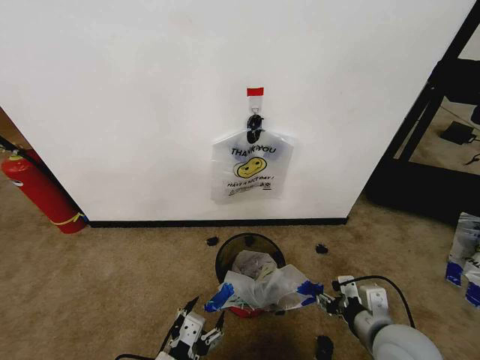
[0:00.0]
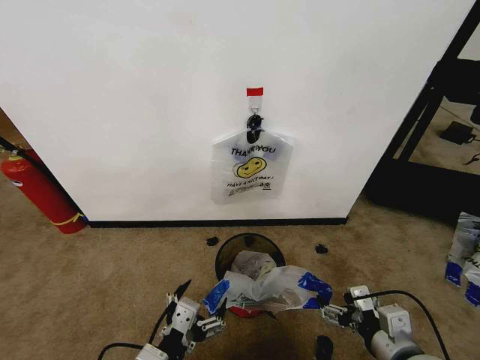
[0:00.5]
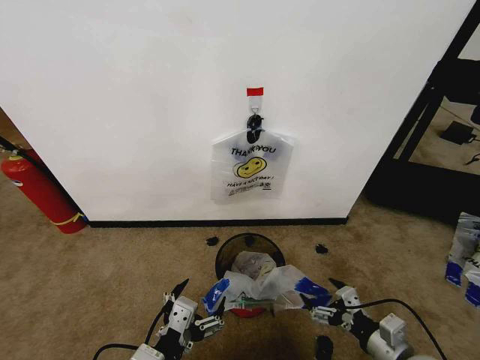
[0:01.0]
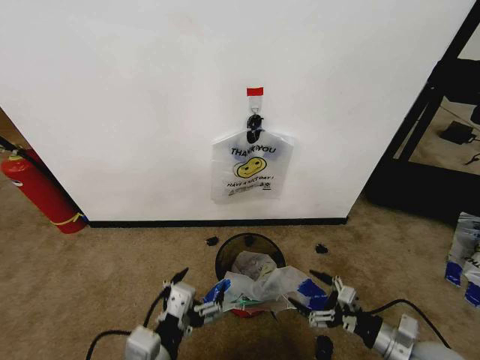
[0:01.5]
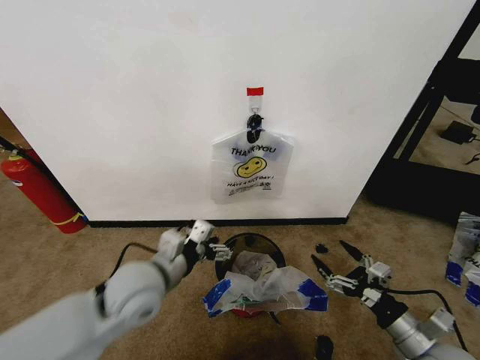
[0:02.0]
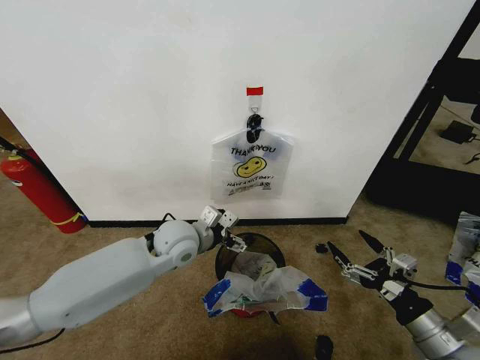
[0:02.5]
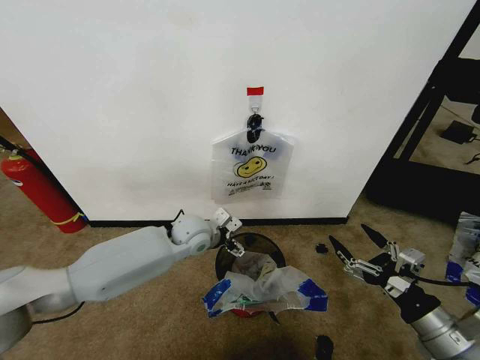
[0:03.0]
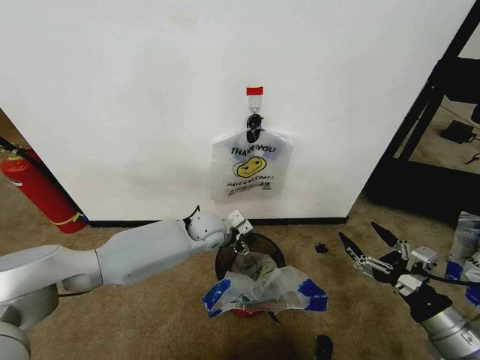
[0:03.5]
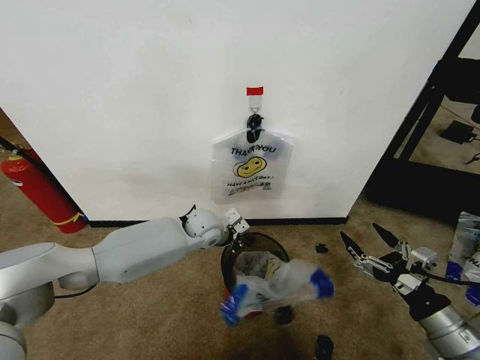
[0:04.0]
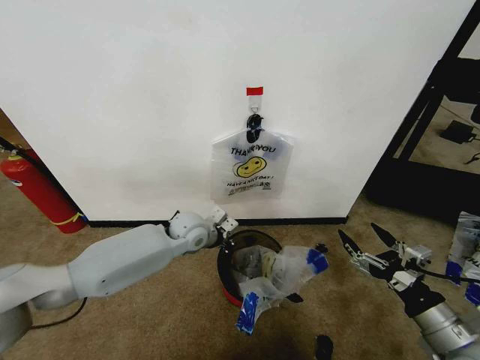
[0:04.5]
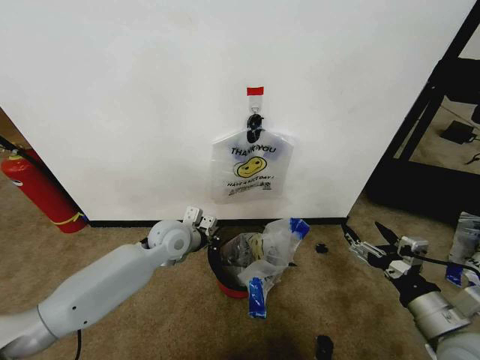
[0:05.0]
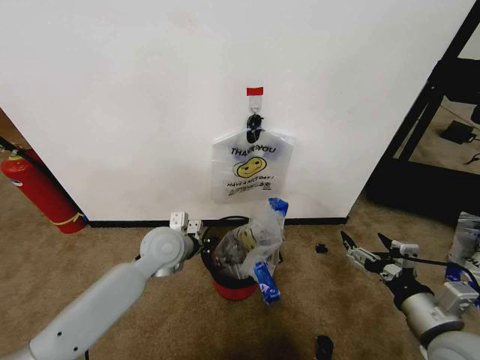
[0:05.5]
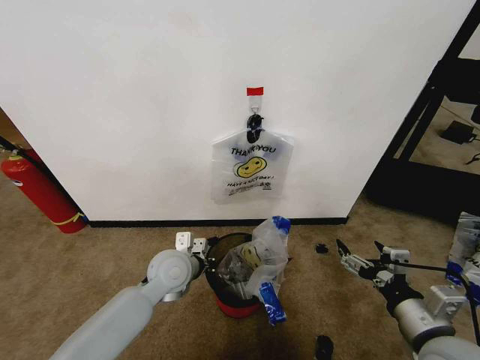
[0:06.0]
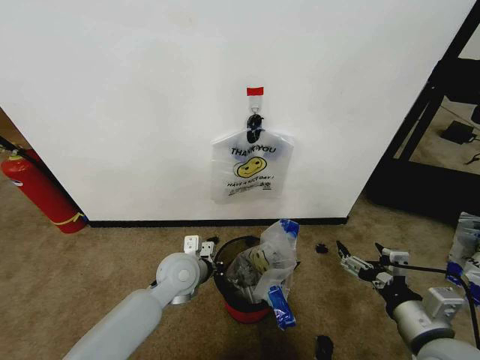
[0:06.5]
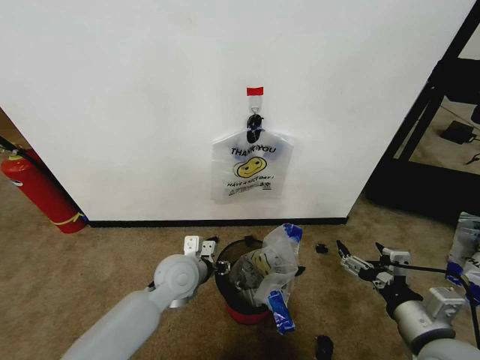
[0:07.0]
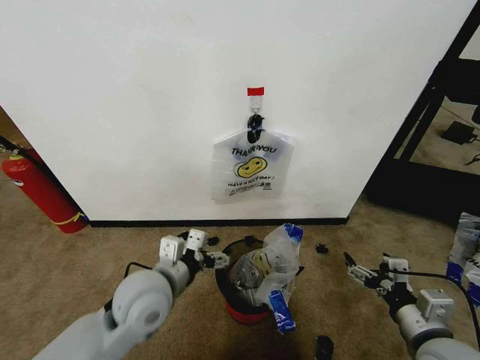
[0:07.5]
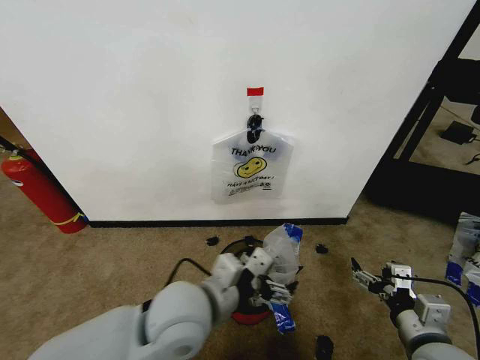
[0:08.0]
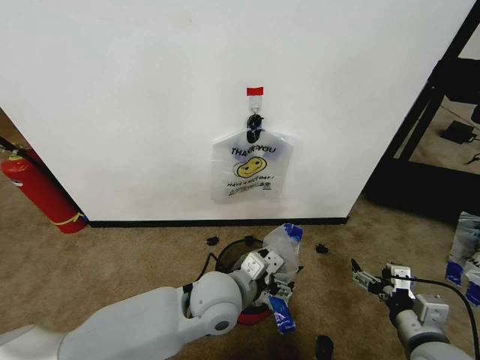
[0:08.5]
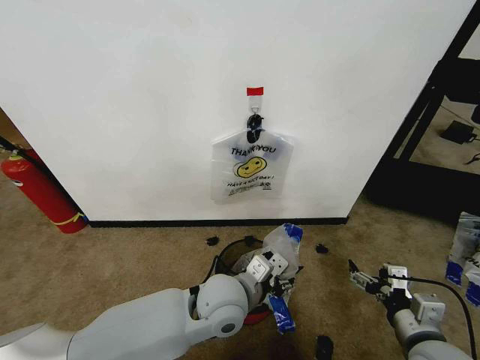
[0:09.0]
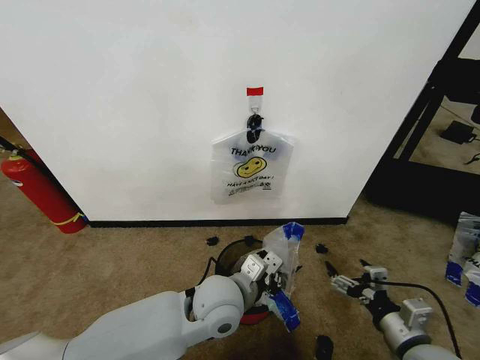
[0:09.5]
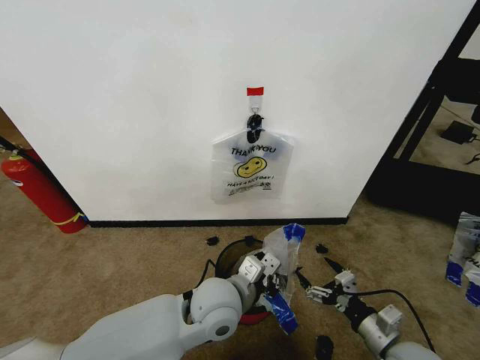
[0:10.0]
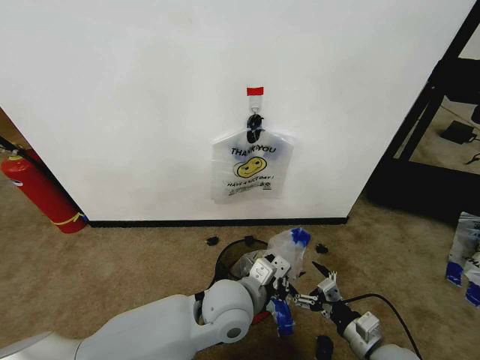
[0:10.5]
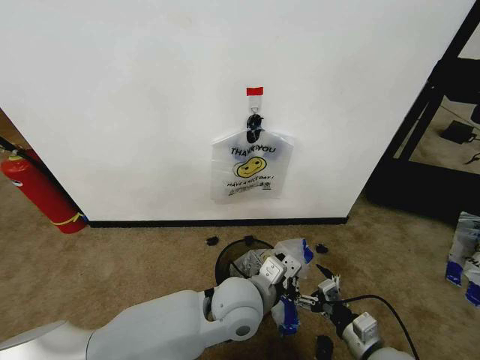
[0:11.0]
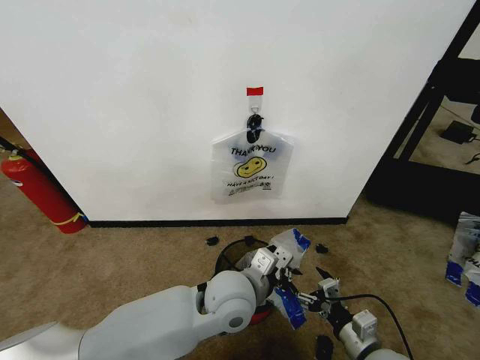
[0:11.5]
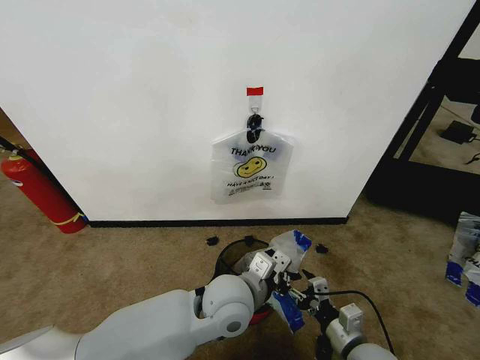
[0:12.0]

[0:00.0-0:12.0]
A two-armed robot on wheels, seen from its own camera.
Task of the whole recording: Pick up the garbage bag from the wall and place it over the trash bin.
0:00.0 to 0:02.0: The right gripper heads to the right and downward, covering about 10 cm, and opens up; the left gripper goes roughly 15 cm forward and upward.
0:02.0 to 0:04.0: The right gripper is displaced upward by about 10 cm. The left gripper goes some 25 cm forward, and closes its fingers.
0:04.0 to 0:06.0: The left gripper travels backward and to the left by about 15 cm, while the right gripper moves to the left, approximately 5 cm.
0:06.0 to 0:08.0: The left gripper shifts about 15 cm backward, upward and to the right, and opens its fingers.
0:08.0 to 0:10.0: The grippers both shift downward by roughly 5 cm. The left gripper closes up.
0:10.0 to 0:12.0: The right gripper is displaced to the left by roughly 5 cm.

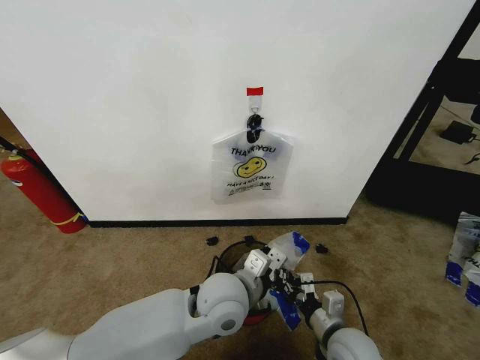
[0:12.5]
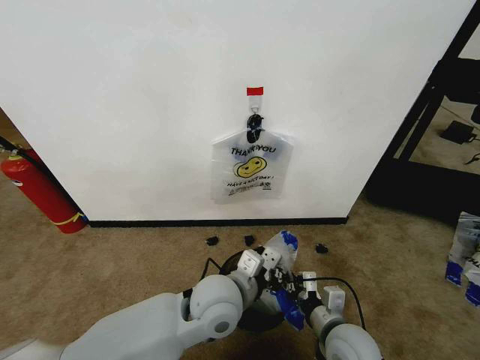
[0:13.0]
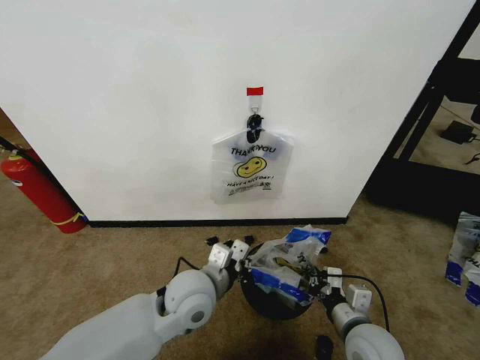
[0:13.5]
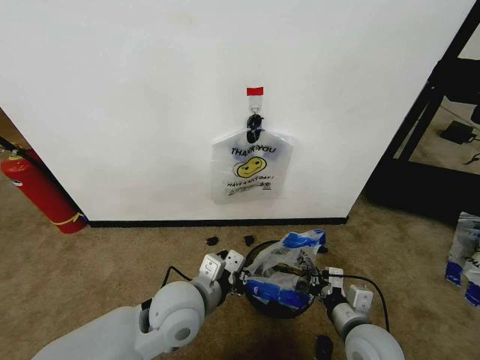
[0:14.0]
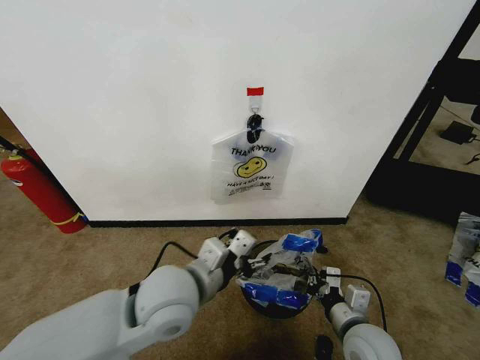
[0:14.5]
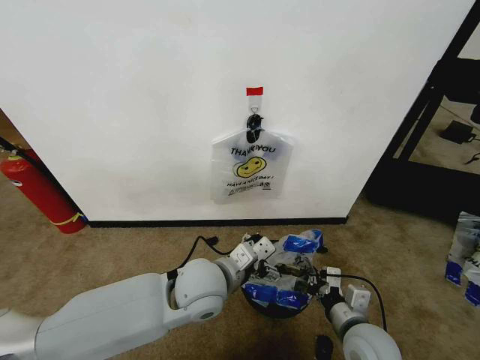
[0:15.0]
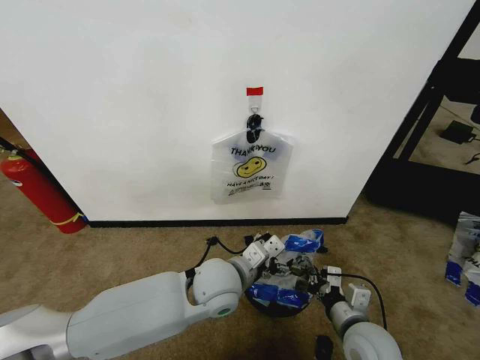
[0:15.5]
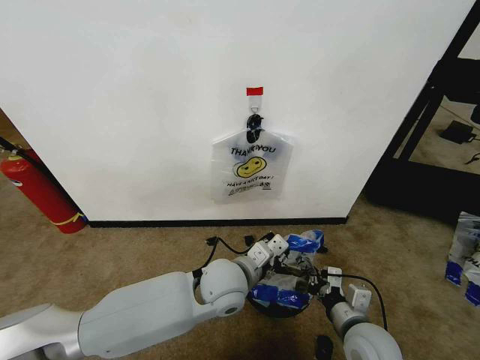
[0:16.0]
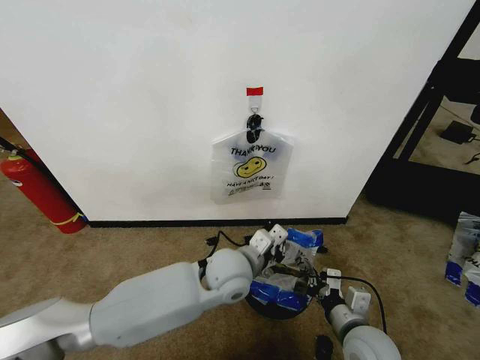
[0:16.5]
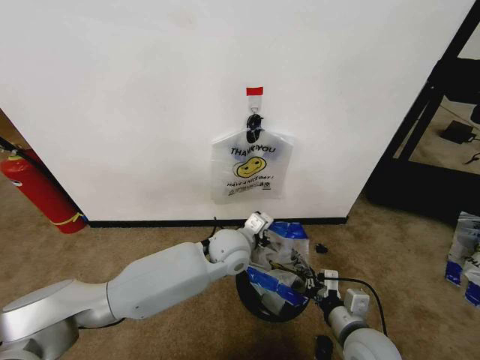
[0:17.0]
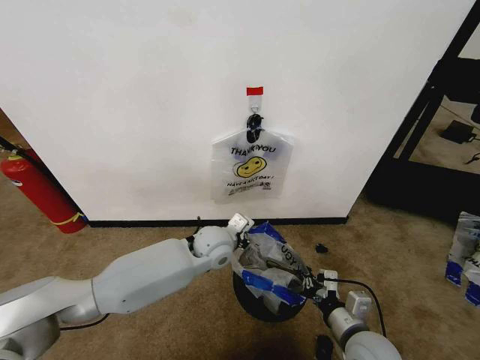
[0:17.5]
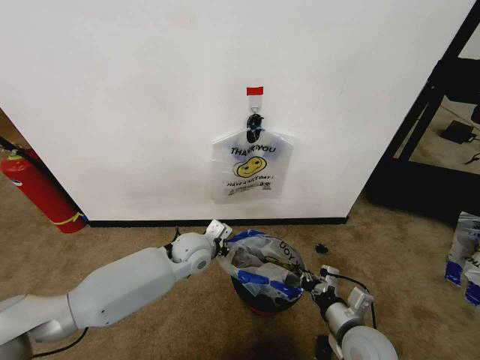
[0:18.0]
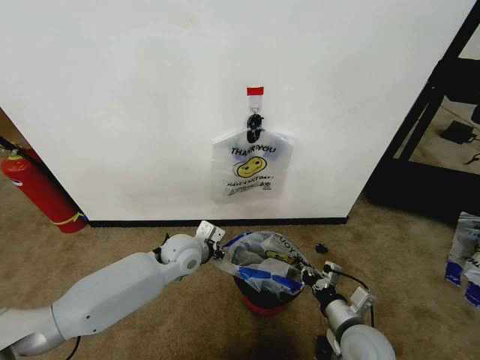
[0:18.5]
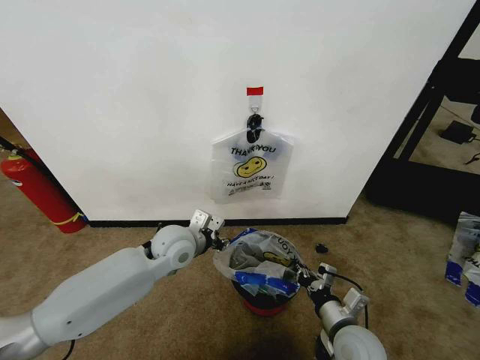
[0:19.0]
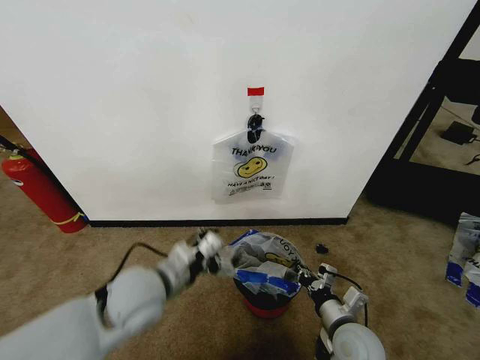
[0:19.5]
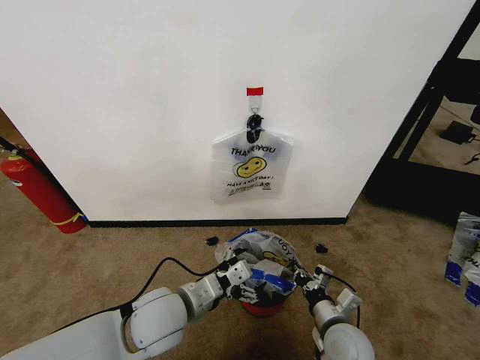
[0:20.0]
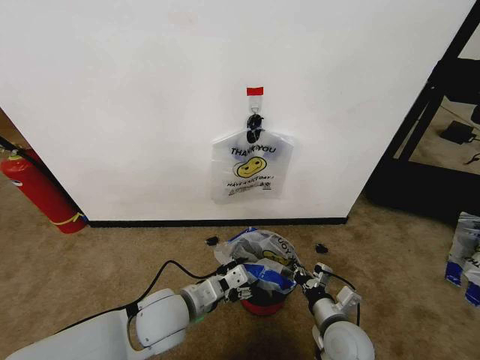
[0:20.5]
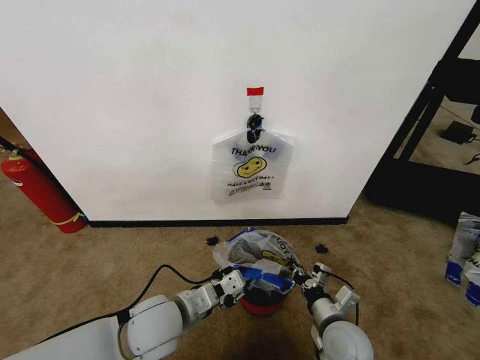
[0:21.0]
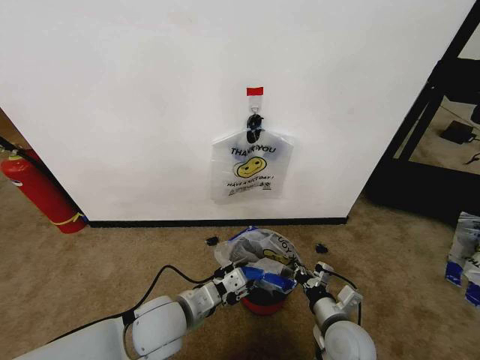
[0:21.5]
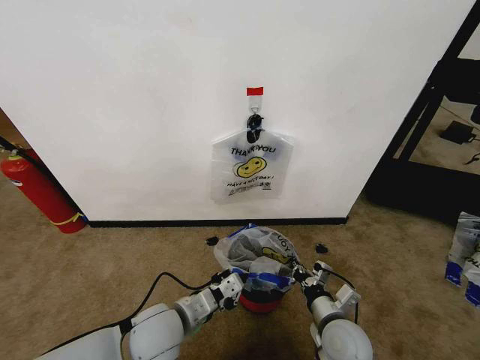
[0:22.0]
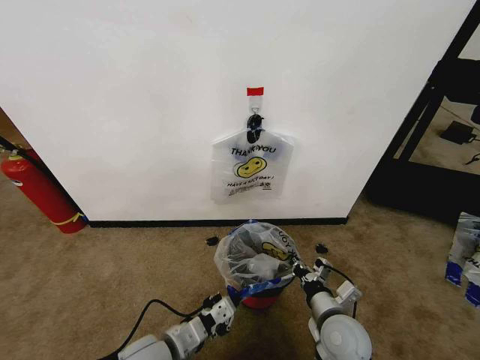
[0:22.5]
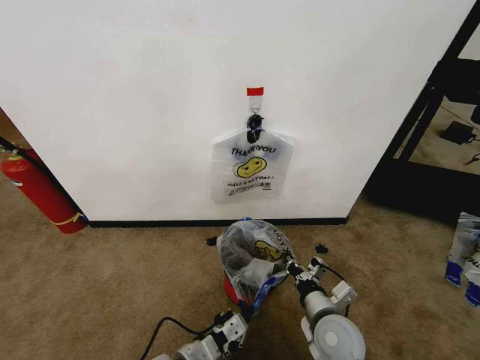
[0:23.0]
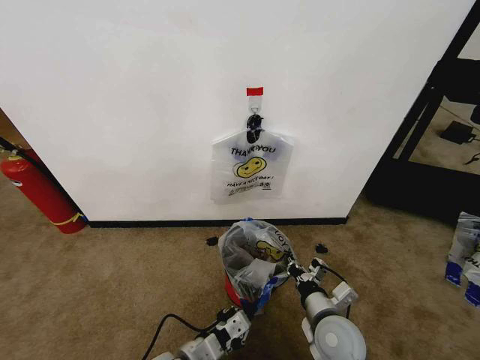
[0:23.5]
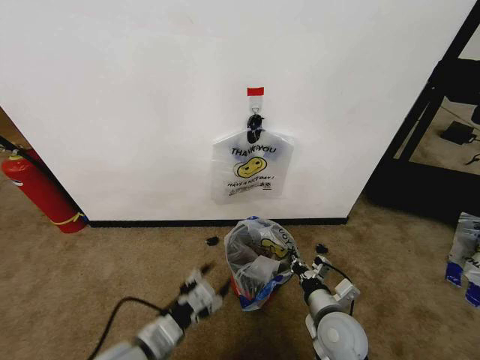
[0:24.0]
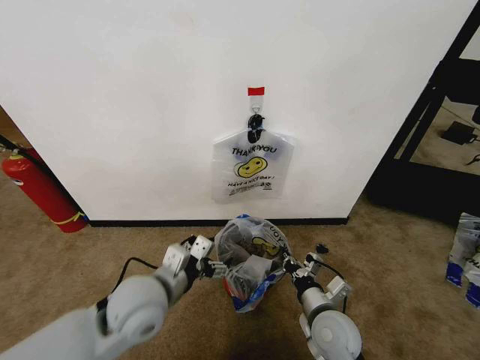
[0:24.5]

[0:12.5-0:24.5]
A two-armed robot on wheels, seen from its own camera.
Task of the whole recording: Pick up the garbage bag from the wall and place it over the trash bin.
0:12.5 to 0:14.5: The left gripper travels to the left and upward by approximately 10 cm, and opens its fingers.
0:14.5 to 0:16.5: The left gripper is displaced to the right, forward and downward by some 15 cm, and closes.
0:16.5 to 0:18.5: The left gripper heads to the left and forward, covering roughly 15 cm.
0:18.5 to 0:20.5: The left gripper heads backward, covering some 15 cm, and opens.
0:20.5 to 0:22.5: The left gripper heads backward, covering about 5 cm, and closes up.
0:22.5 to 0:24.5: The left gripper shifts about 10 cm upward and forward, and opens up.

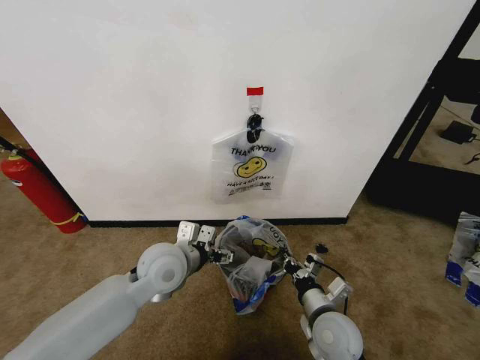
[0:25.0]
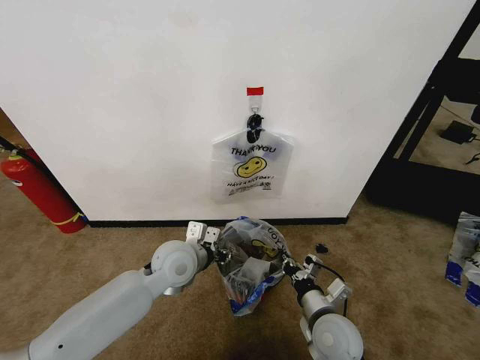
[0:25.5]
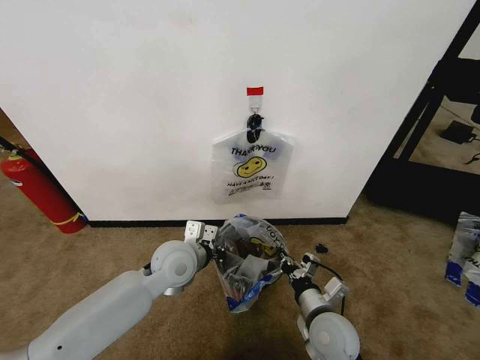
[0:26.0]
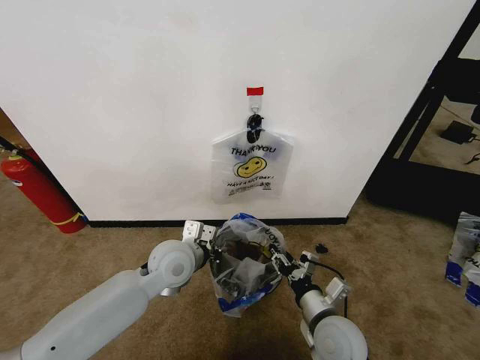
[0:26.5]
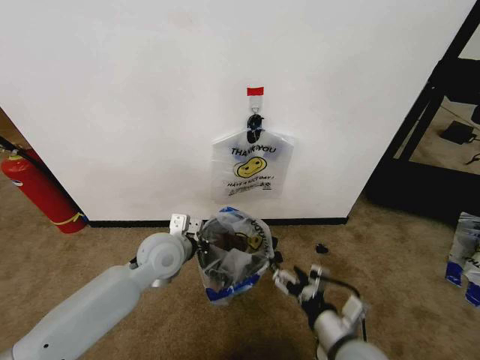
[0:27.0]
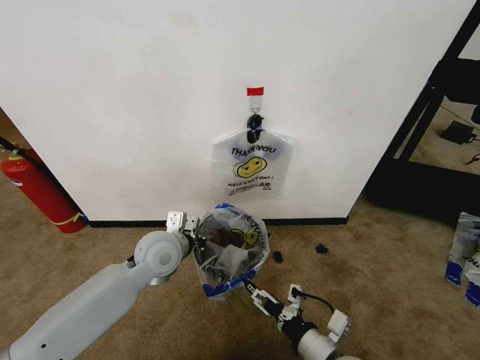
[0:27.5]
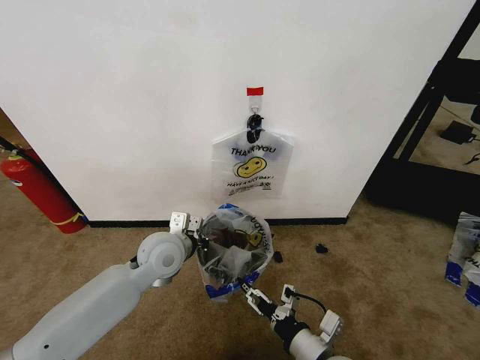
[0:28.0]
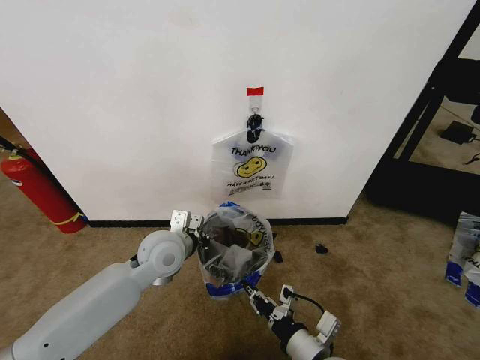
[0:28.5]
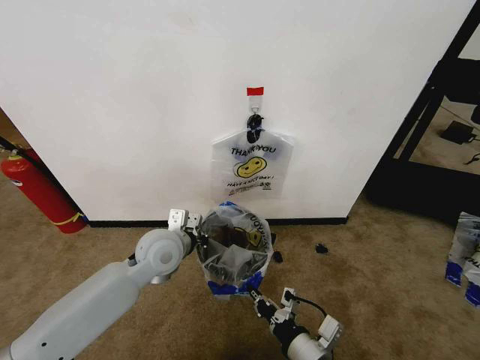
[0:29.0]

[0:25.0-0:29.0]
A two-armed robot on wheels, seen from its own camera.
Task of the whole recording: Pick up the garbage bag from the wall and place it over the trash bin.
0:25.0 to 0:27.0: The right gripper is displaced backward by approximately 5 cm, and opens its fingers. Meanwhile the left gripper closes.
0:27.0 to 0:29.0: The right gripper changes place by roughly 5 cm, and closes its fingers.
